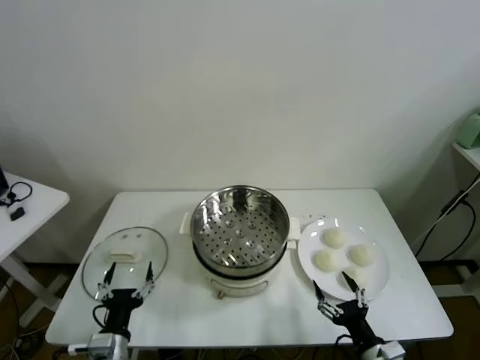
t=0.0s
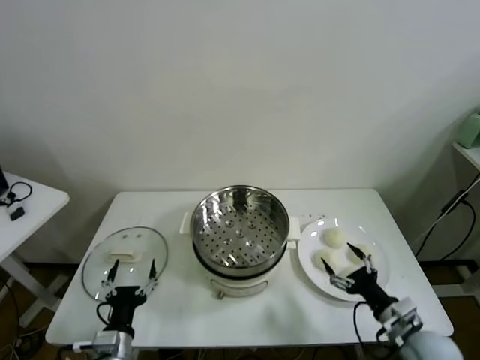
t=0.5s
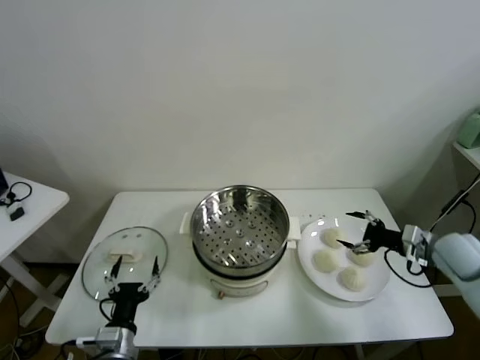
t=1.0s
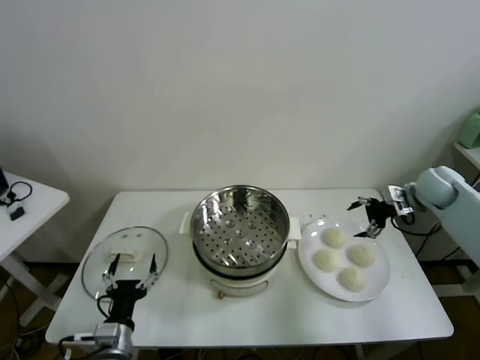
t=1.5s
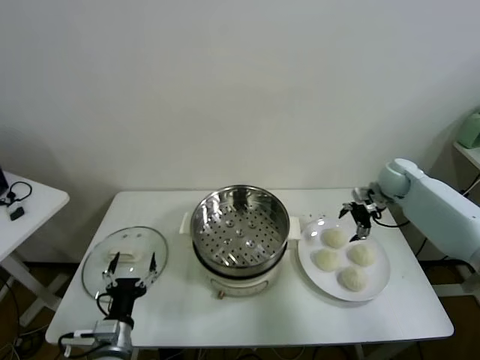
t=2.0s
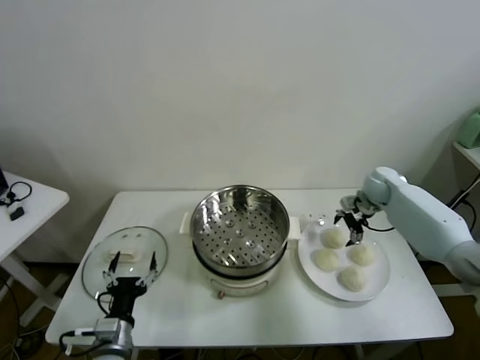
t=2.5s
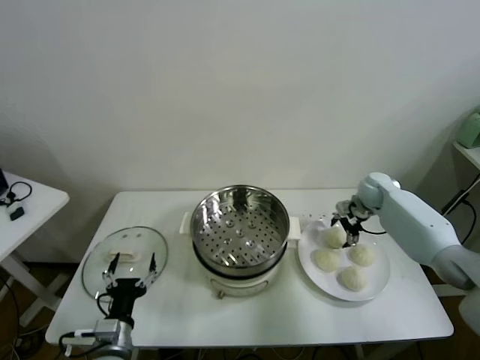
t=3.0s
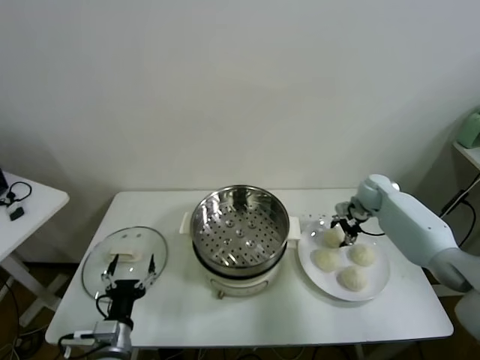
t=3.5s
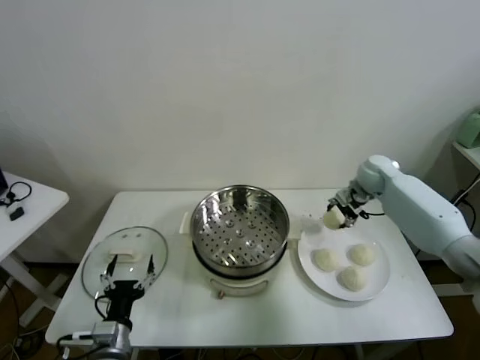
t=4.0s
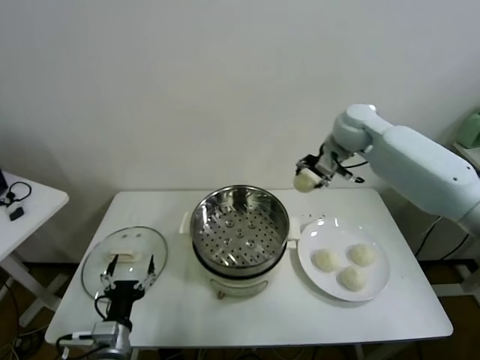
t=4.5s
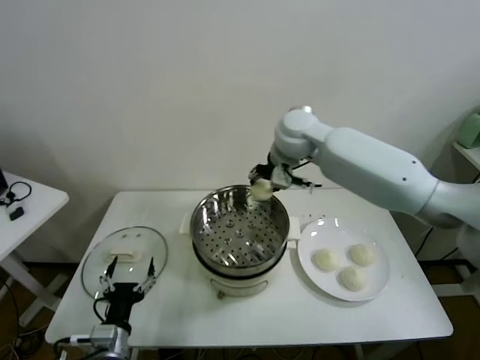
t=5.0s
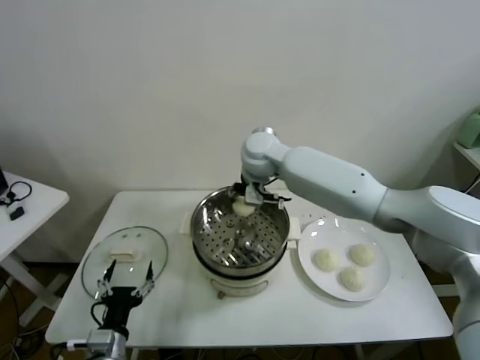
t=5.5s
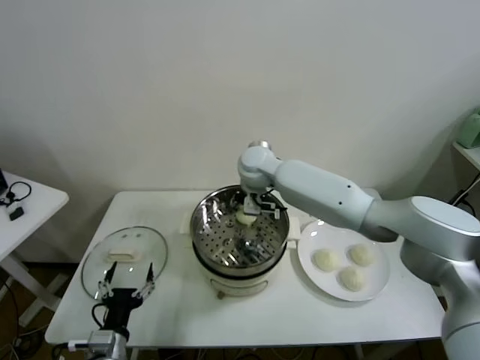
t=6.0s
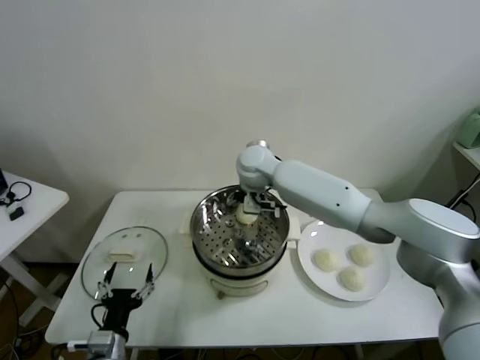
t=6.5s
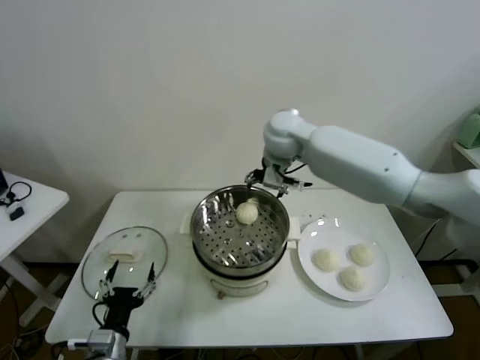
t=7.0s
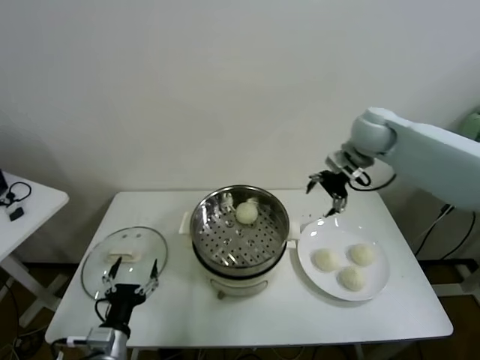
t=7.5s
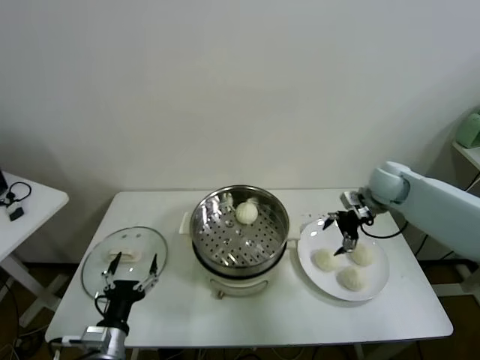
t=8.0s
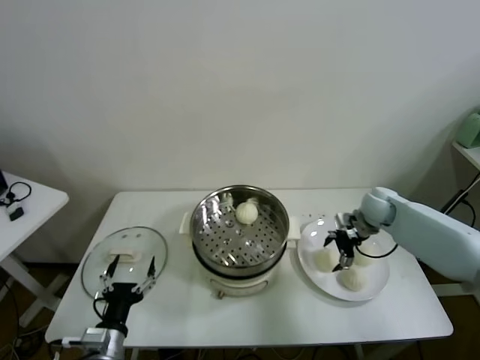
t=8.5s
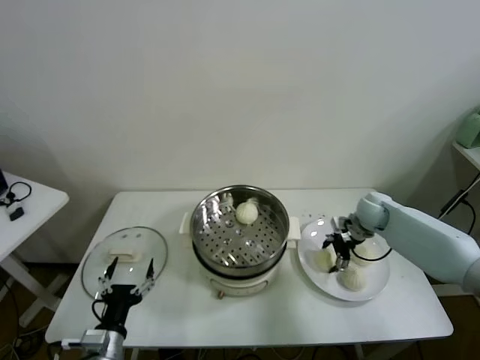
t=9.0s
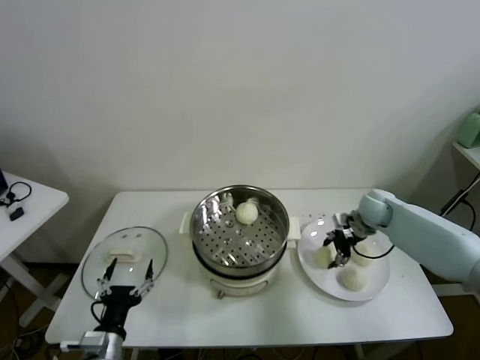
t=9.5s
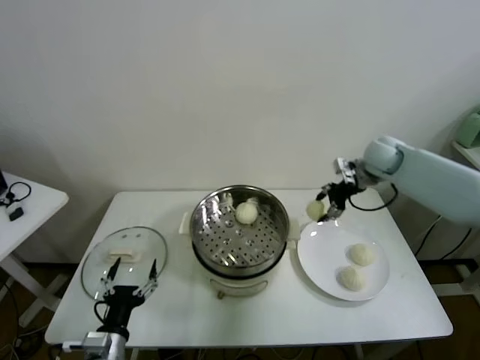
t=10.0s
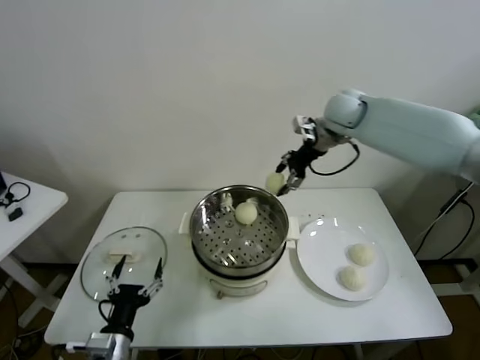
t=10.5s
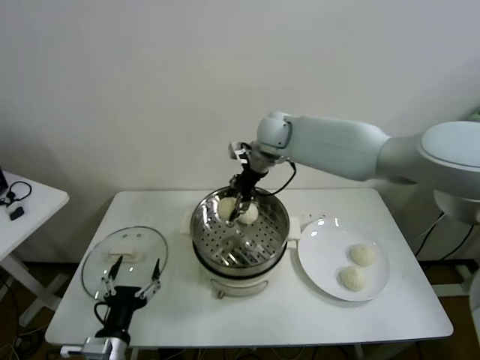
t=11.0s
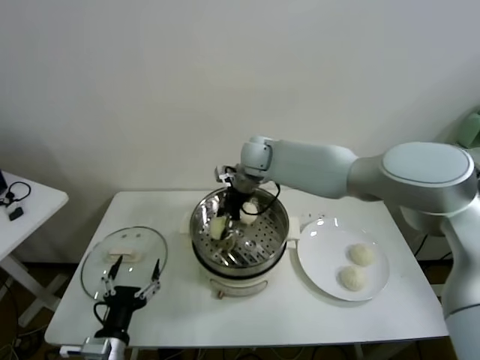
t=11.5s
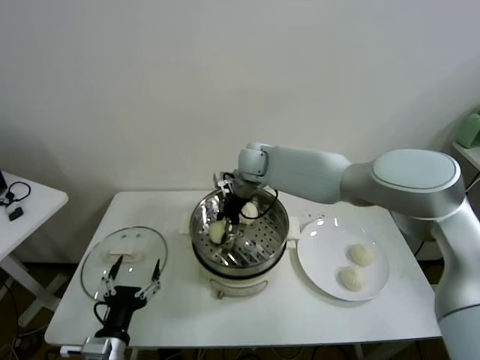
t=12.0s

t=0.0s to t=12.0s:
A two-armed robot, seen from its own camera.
Task of the whole recording: take steamed baozi put them in steamer.
Step, t=0.0s to t=3.0s: Grasp the baozi in the plate with right gripper.
Step, t=3.5s to t=6.5s: Place the baozi on the steamer with right gripper.
Step, t=7.0s to t=9.0s: Grasp the baozi in the plate with right gripper.
t=2.0s to t=4.0s: The right gripper shifts approximately 5 cm to the left, and closes up.
t=4.0s to t=6.0s: The right gripper travels to the left by some 30 cm.
t=6.0s to t=8.0s: The right gripper travels to the right by approximately 35 cm, and opens its fingers.
t=8.0s to t=10.0s: The right gripper travels upward and forward by roughly 10 cm, and closes up.
t=10.0s to t=12.0s: The right gripper shifts about 30 cm to the left.

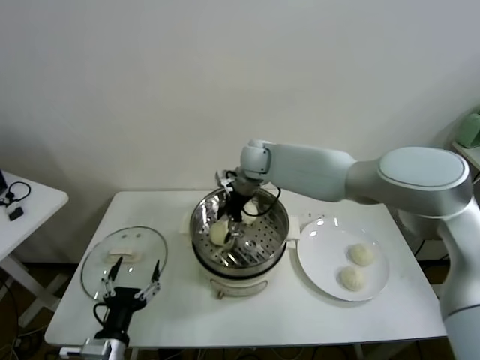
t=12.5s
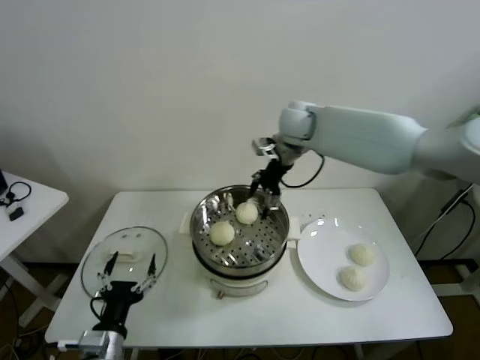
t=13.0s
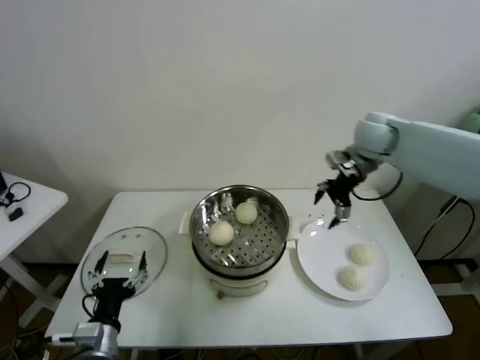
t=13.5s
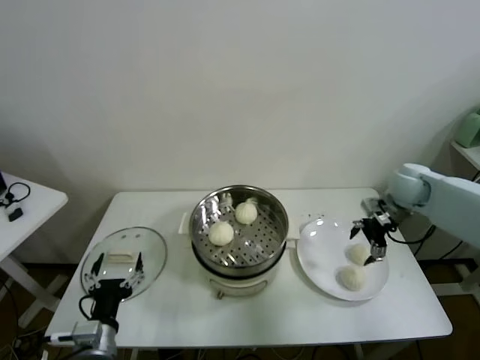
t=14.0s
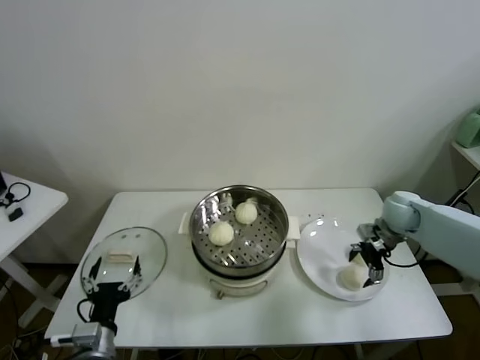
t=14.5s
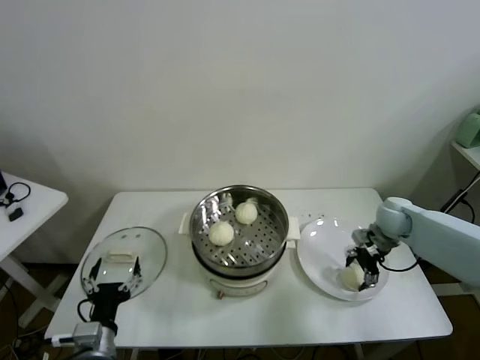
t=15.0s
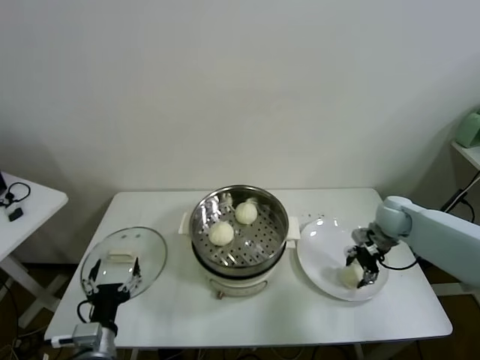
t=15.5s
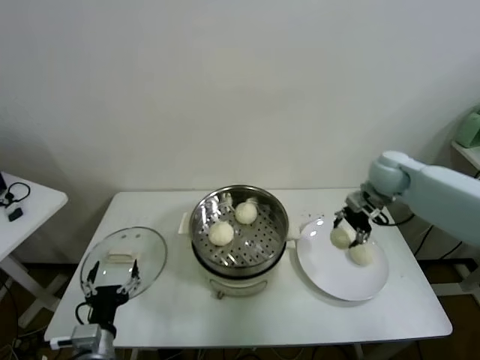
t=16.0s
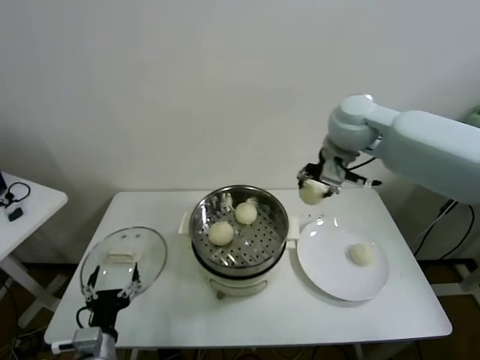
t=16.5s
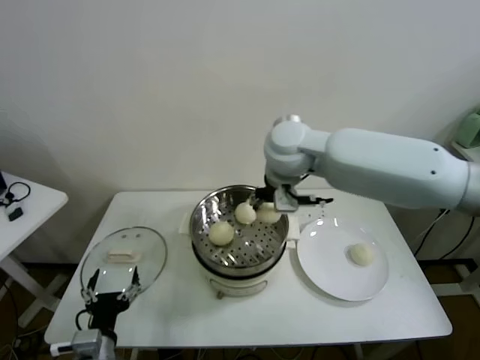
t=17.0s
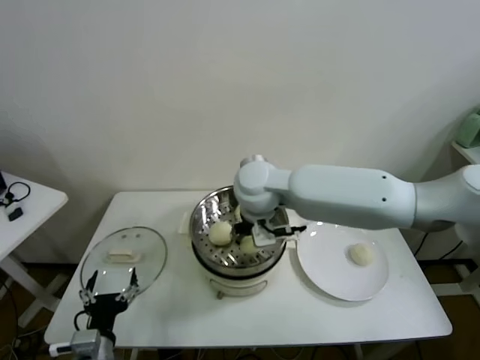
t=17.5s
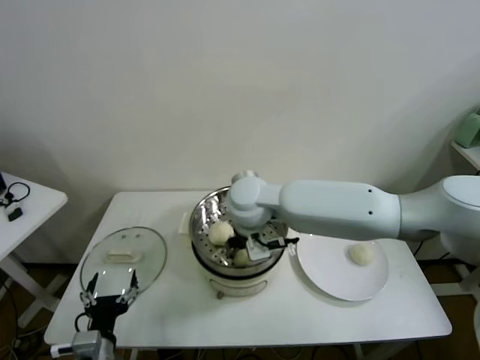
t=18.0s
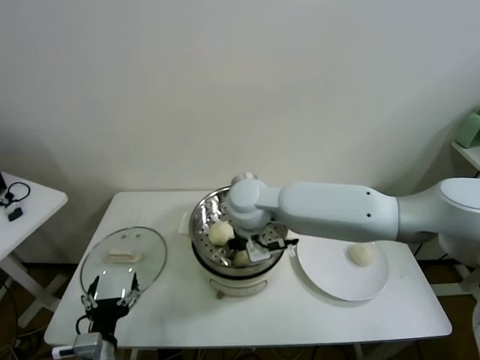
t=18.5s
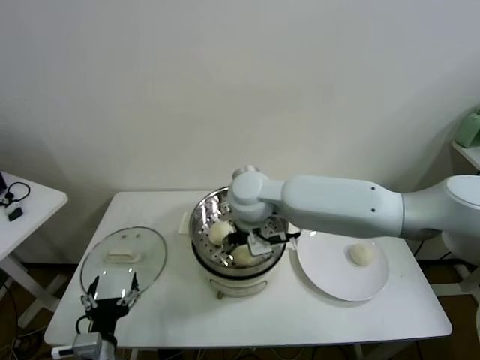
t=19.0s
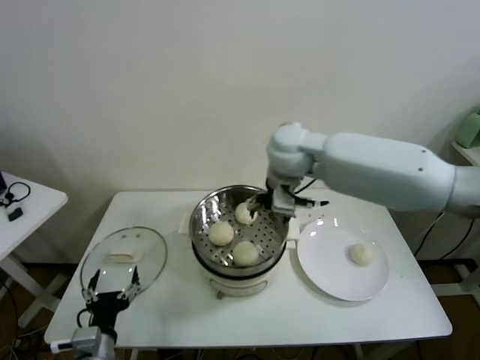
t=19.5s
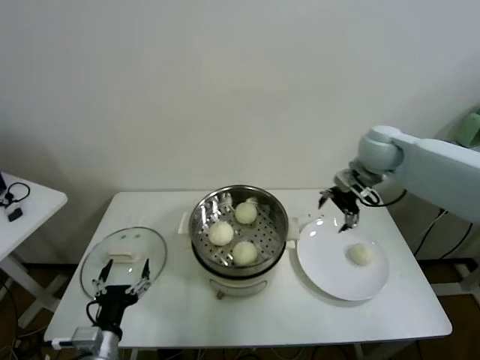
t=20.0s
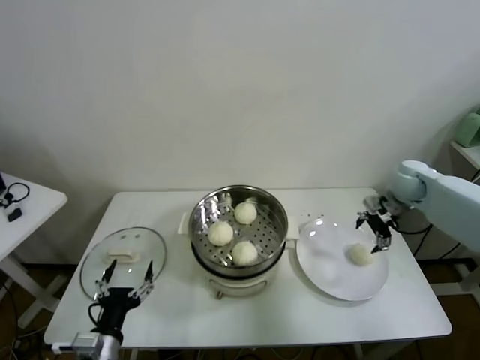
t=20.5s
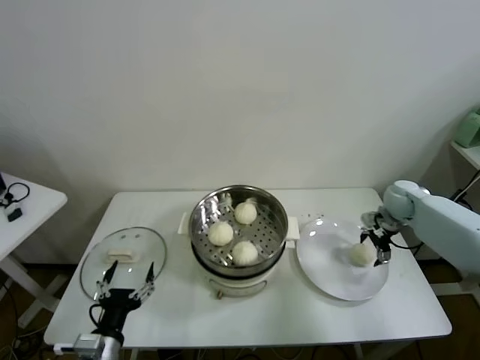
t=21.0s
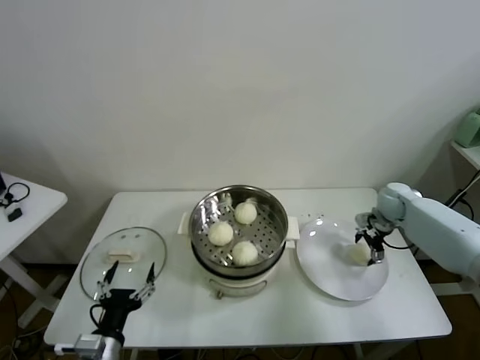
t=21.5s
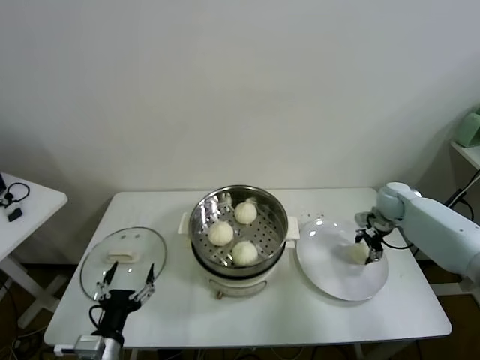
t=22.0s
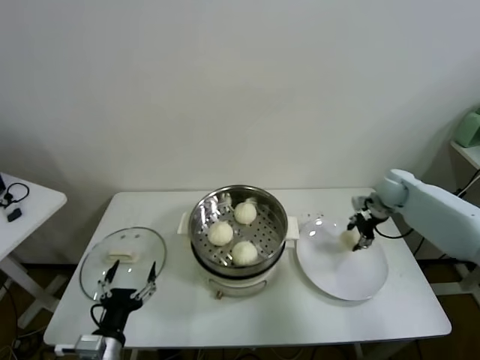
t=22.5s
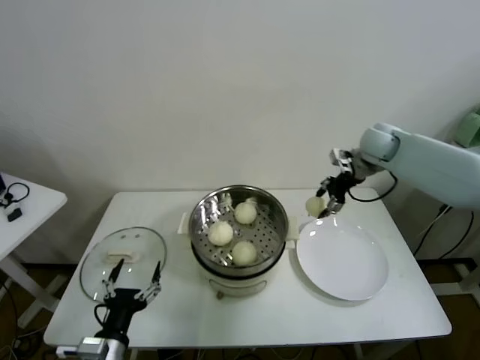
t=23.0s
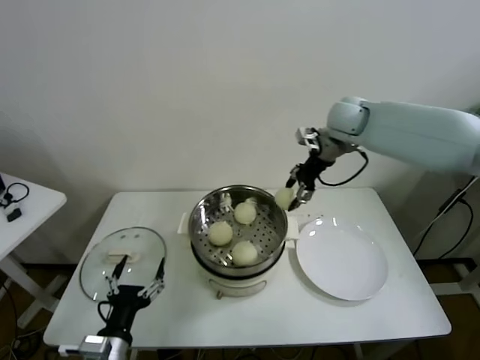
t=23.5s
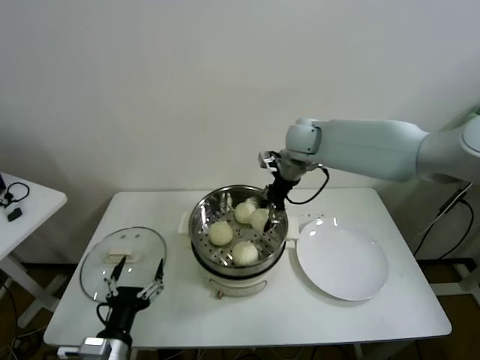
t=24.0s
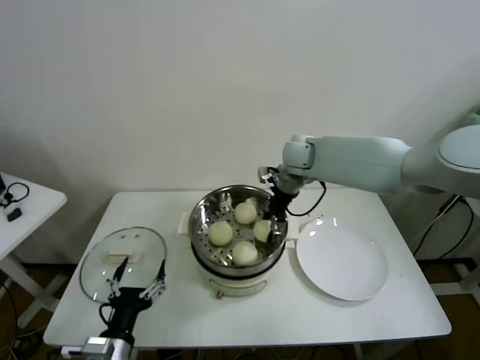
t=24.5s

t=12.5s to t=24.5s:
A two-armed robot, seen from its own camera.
Task of the whole recording: take steamed baozi put them in steamer.
Step, t=13.0s to t=15.0s: Grasp the baozi in the plate with right gripper.
Step, t=15.5s to t=19.0s: Place the baozi on the steamer with right gripper.
Step, t=19.5s to t=22.0s: Grasp the baozi in the plate with right gripper.
t=12.5s to t=14.5s: The right gripper goes approximately 35 cm to the right.
t=14.5s to t=16.5s: The right gripper goes approximately 30 cm upward and to the left, and closes its fingers.
t=16.5s to t=18.5s: The right gripper moves to the left and downward, about 25 cm.
t=18.5s to t=20.5s: The right gripper shifts approximately 40 cm to the right, and opens.
t=20.5s to t=22.5s: The right gripper travels downward by about 5 cm, and closes its fingers.
t=22.5s to t=24.5s: The right gripper travels to the left and upward by about 30 cm.

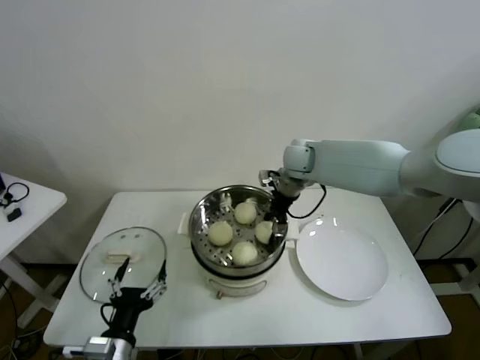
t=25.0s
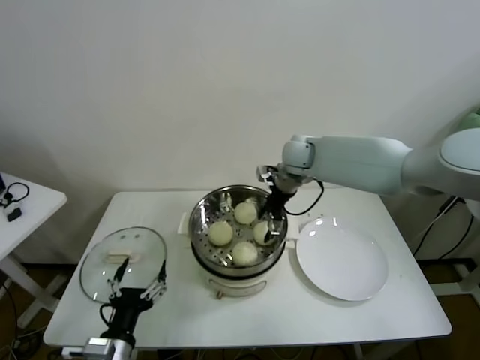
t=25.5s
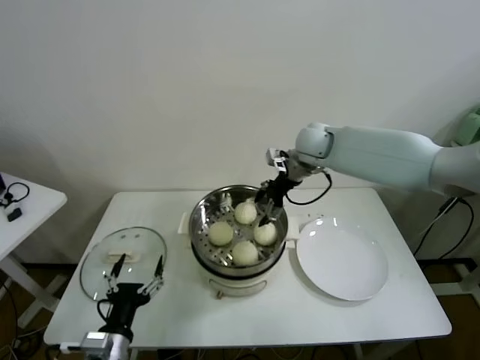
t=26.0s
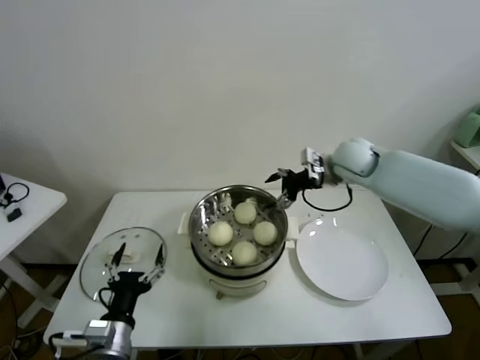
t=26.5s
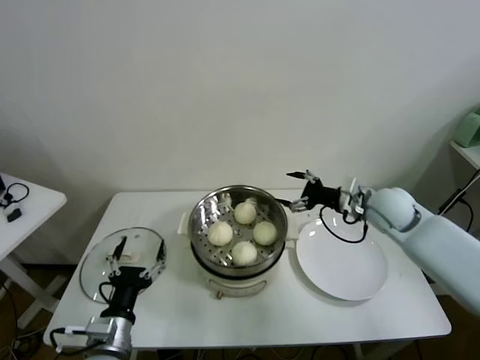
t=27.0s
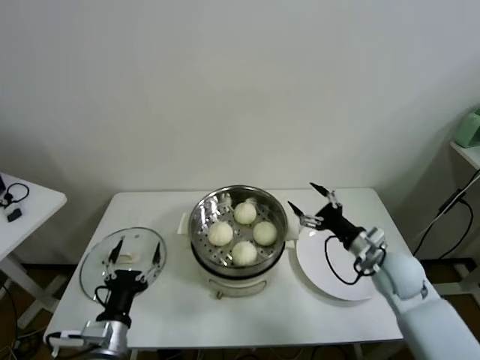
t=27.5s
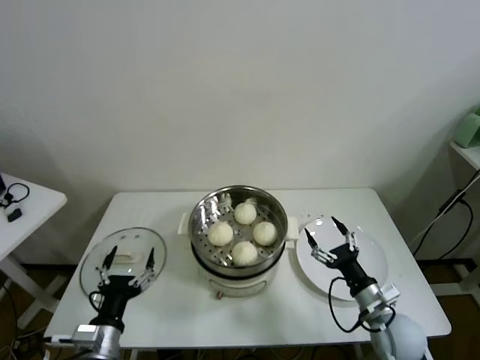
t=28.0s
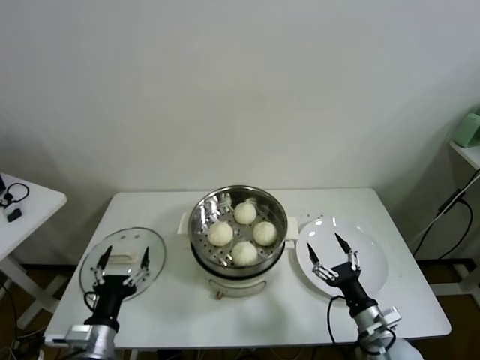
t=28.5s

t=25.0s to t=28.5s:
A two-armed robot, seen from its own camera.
Task of the whole recording: take steamed baozi put them in steamer.
t=25.0s to t=27.0s: The right gripper heads to the right and backward, covering roughly 20 cm, and opens up.
t=27.0s to t=28.5s: The right gripper goes some 30 cm backward and downward.
